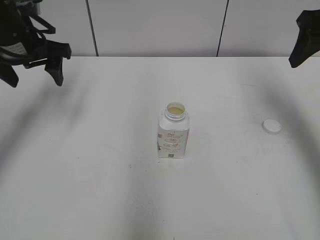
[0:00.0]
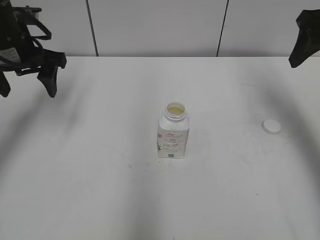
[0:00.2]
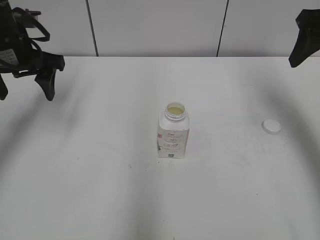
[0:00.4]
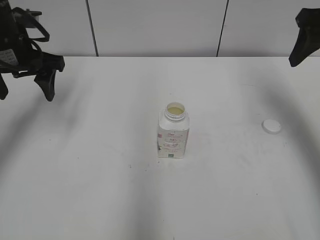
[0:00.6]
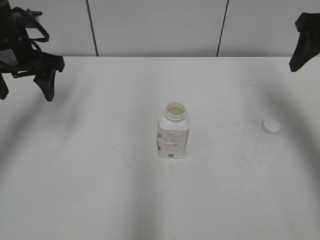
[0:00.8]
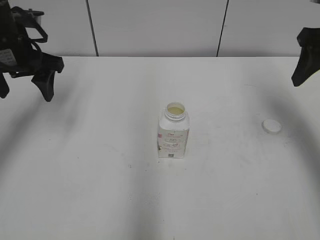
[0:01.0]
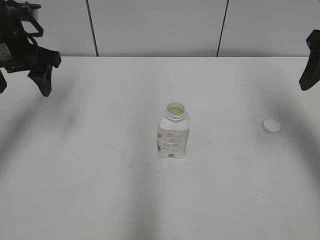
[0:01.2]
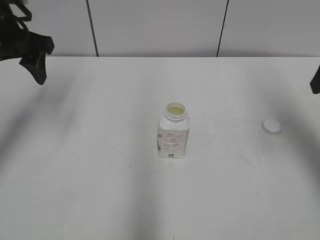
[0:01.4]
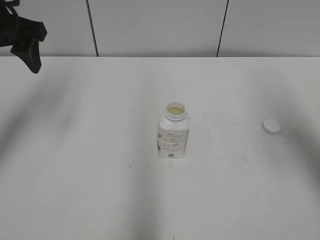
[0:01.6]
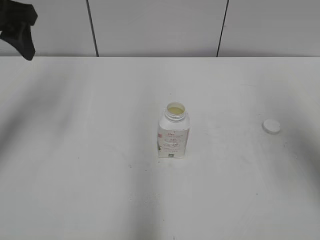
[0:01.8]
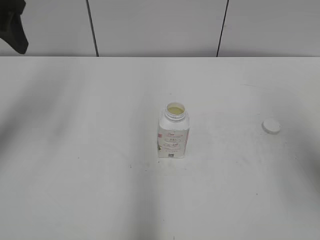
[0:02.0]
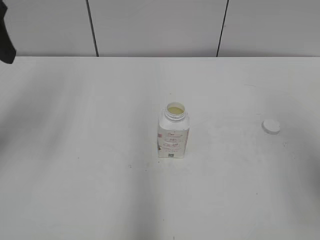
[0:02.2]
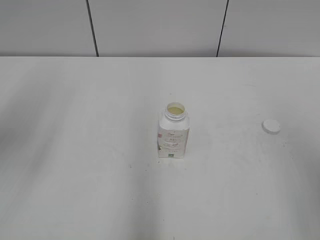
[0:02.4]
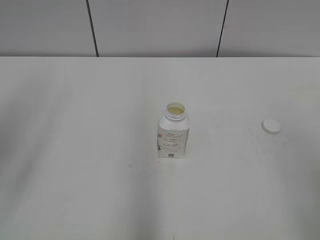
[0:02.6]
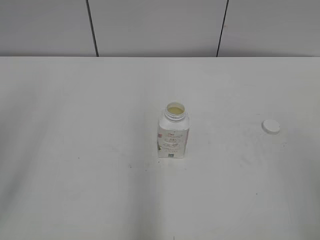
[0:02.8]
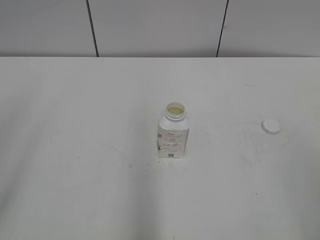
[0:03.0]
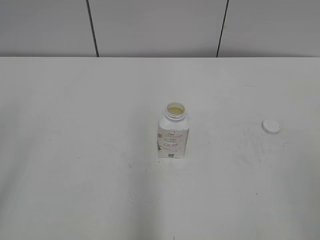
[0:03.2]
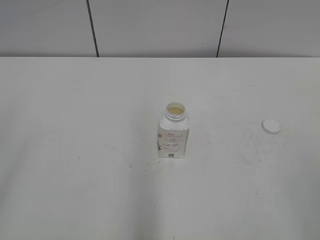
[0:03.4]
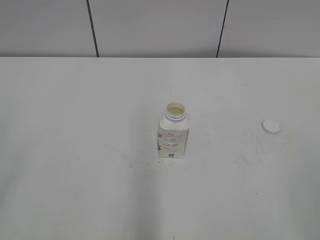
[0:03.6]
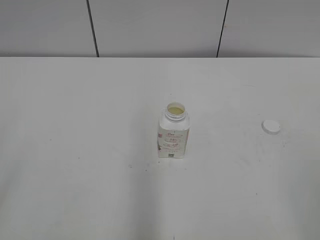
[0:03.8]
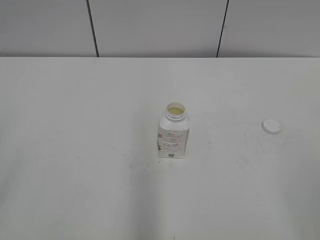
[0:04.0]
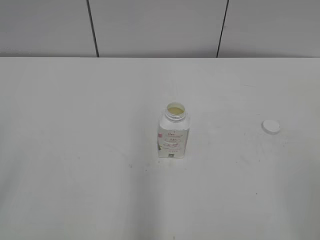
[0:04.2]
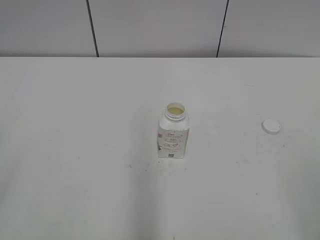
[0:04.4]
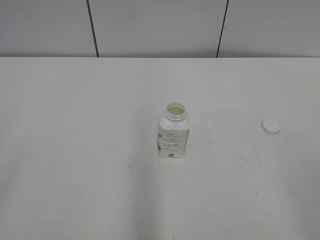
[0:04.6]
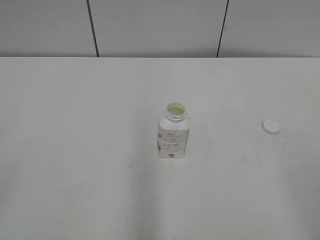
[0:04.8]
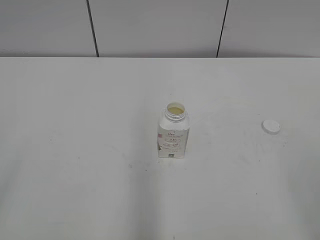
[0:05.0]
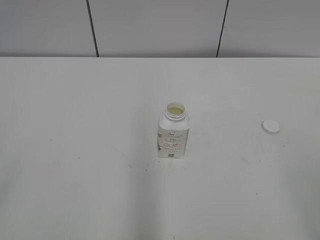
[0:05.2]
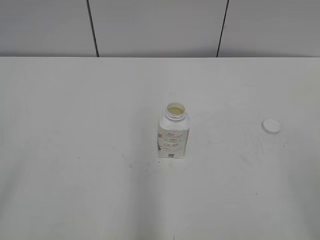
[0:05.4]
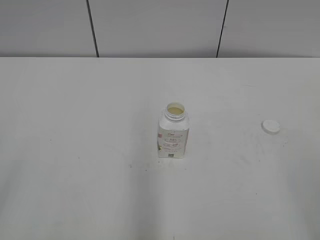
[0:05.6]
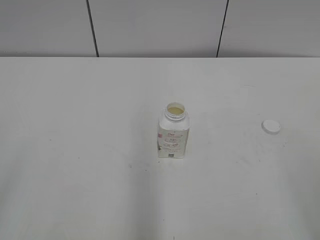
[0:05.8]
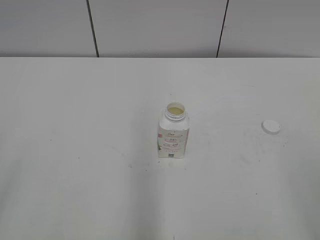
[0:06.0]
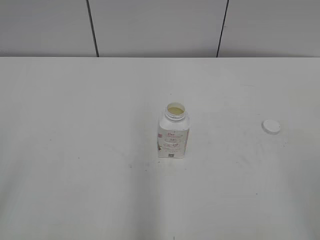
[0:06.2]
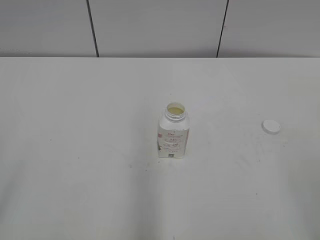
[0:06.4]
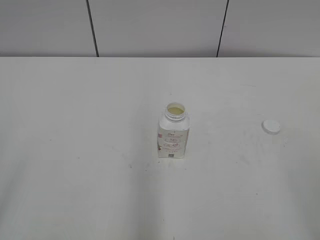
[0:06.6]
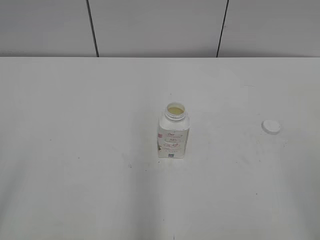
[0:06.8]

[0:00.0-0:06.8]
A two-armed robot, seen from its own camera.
0.0 to 1.4 s: The right gripper is displaced backward by roughly 5 cm.
1.4 to 2.8 s: The grippers both shift backward by approximately 25 cm.

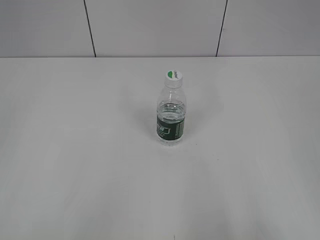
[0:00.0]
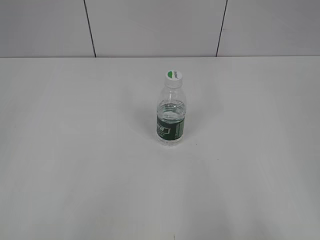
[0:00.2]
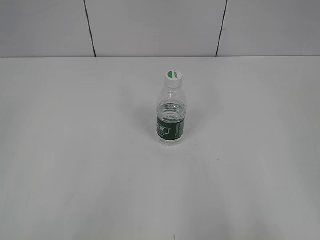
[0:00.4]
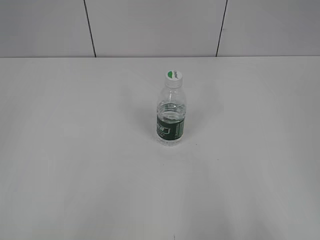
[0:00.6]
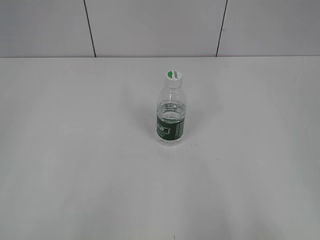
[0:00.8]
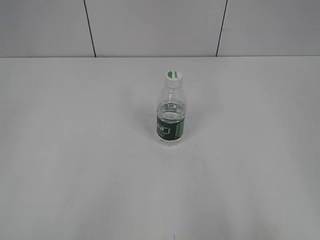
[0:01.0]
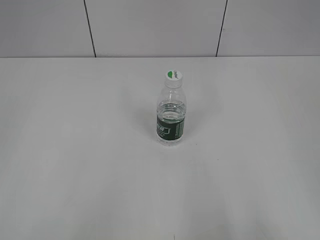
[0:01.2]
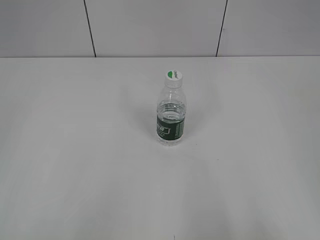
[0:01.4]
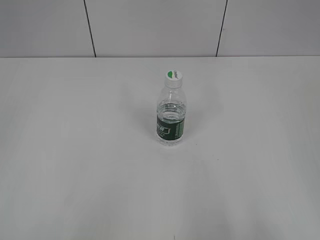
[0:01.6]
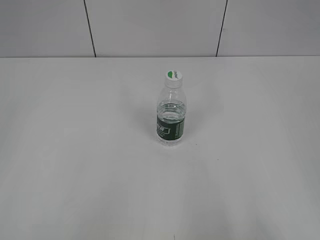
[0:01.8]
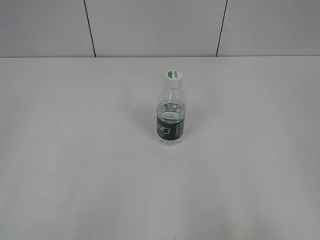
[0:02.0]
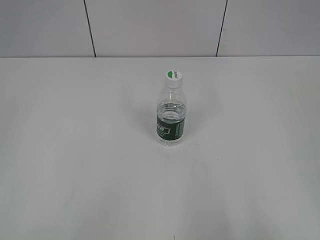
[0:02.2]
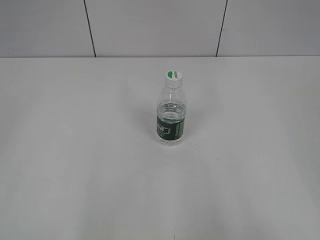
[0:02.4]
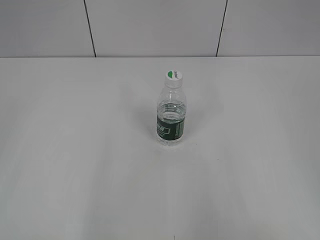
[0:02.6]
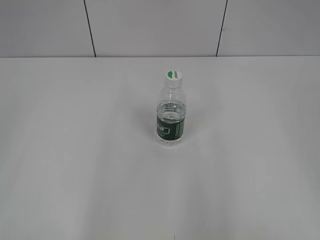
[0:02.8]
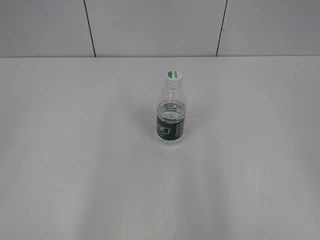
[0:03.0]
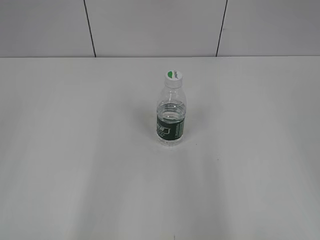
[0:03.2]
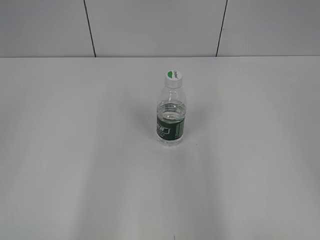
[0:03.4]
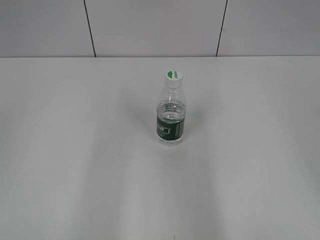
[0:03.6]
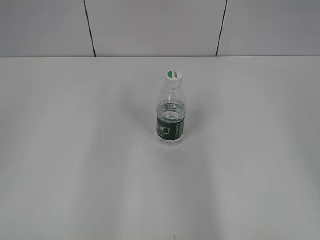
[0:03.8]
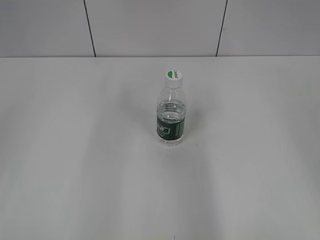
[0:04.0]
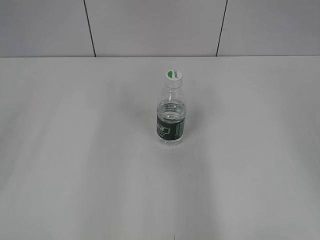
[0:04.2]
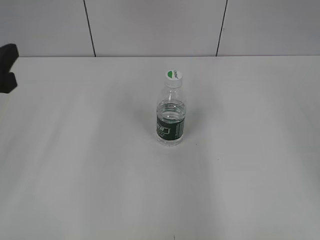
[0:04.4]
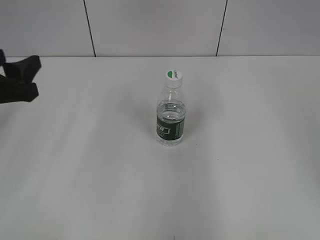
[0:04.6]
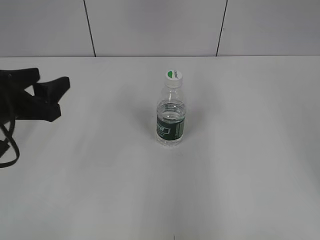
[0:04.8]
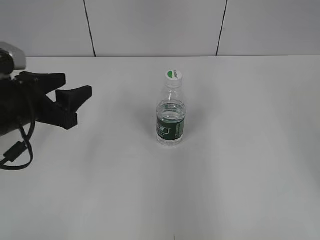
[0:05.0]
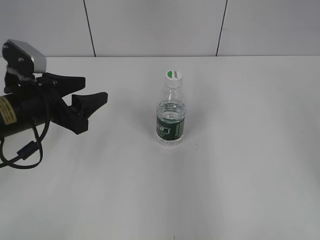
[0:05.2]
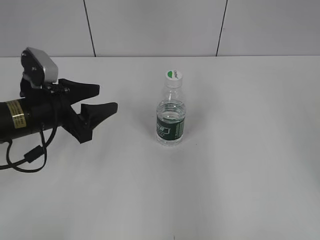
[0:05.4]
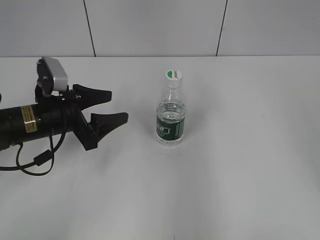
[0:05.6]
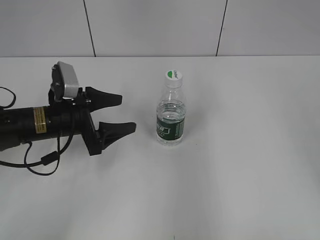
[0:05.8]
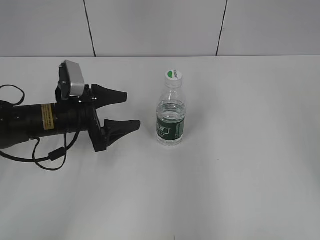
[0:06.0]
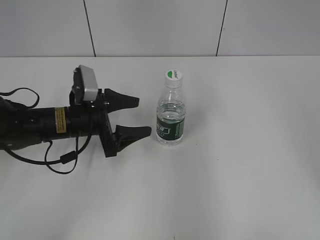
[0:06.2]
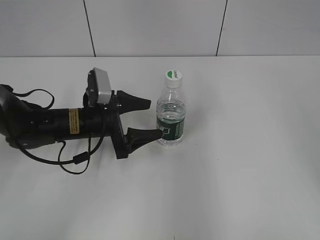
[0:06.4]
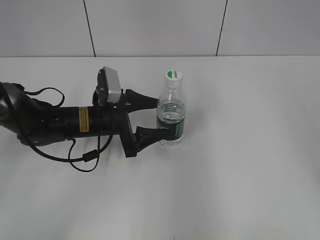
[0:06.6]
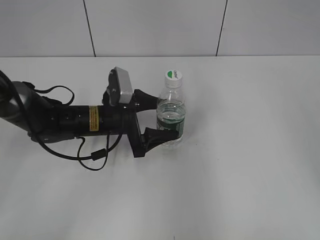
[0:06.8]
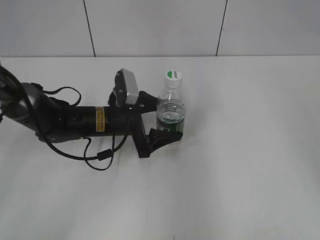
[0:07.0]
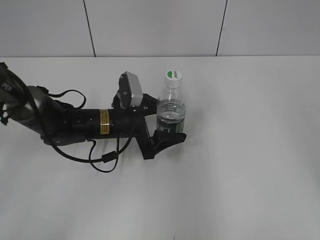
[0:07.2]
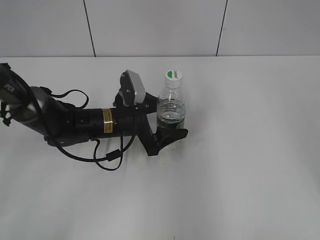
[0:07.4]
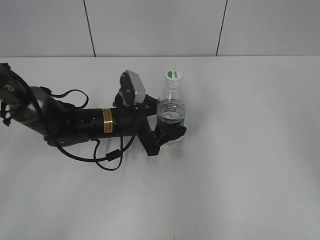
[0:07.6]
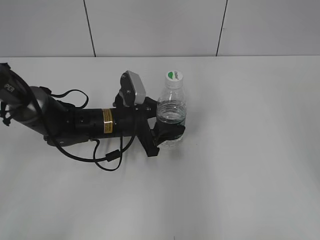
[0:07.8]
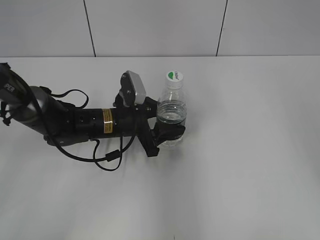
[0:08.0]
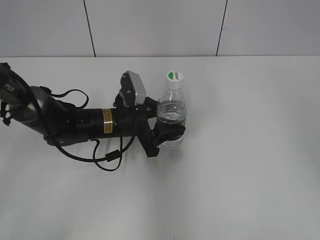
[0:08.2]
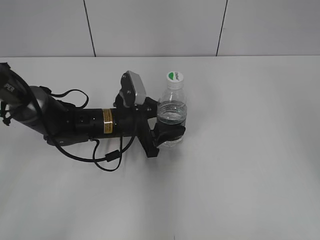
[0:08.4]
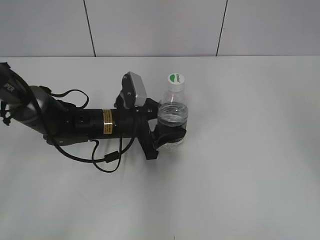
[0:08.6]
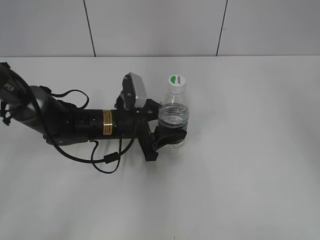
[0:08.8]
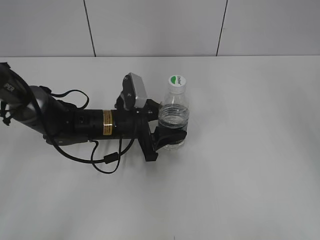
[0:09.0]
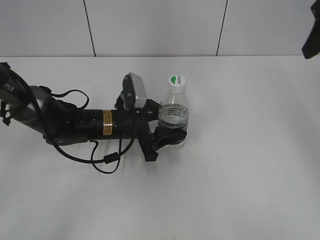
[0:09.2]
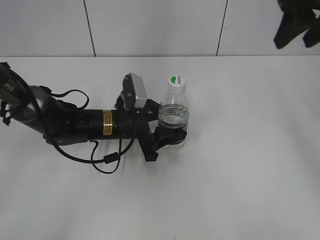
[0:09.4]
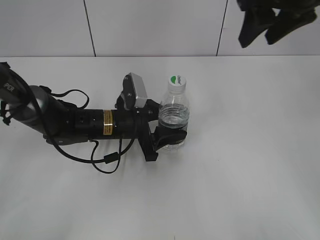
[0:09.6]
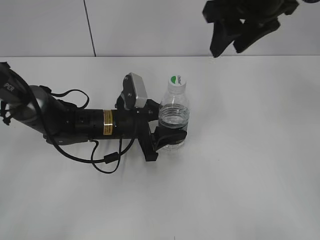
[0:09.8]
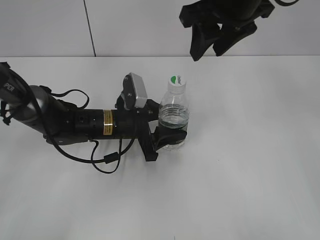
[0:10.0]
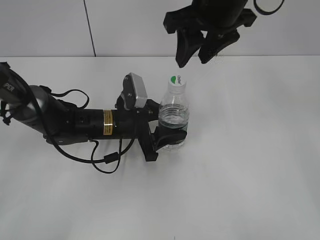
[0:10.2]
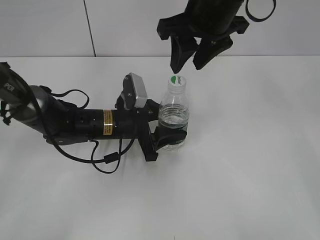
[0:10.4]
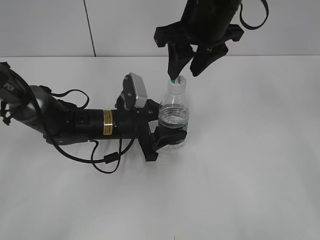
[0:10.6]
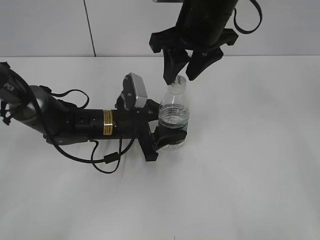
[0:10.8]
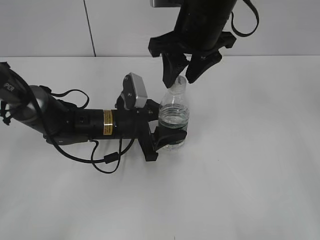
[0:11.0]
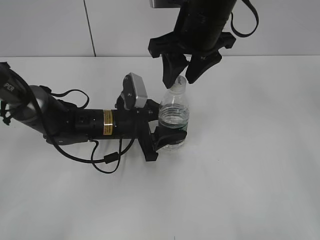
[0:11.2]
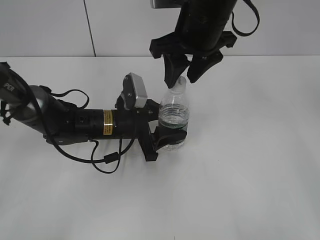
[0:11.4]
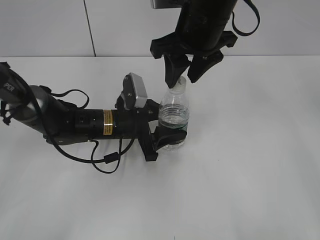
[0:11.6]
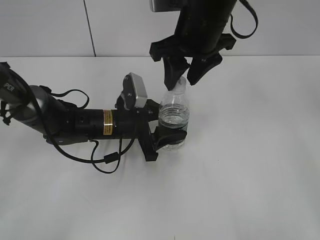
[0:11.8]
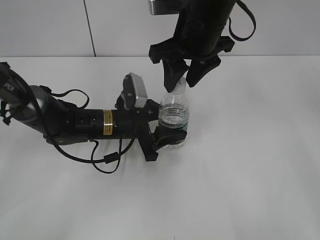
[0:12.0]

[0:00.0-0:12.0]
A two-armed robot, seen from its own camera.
Step, 0.0 to 9.0 s: Grasp the bottle and move it to the center of the table with the left gripper.
3.0 to 4.4 s: The left gripper goes approximately 20 cm forward and downward.
4.4 to 6.0 s: The left gripper moves downward, forward and to the right, about 20 cm, and opens up.
6.0 to 7.6 s: The left gripper is displaced to the right by roughly 10 cm, and closes.
7.6 to 9.0 s: The left gripper closes, while the right gripper goes some 10 cm forward.
9.0 to 10.4 s: The right gripper shifts about 20 cm to the left.
10.4 to 12.0 s: There are only small adjustments of the grippers.

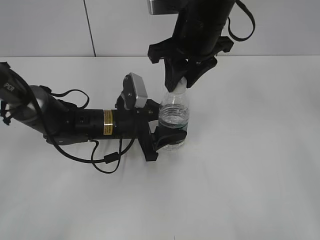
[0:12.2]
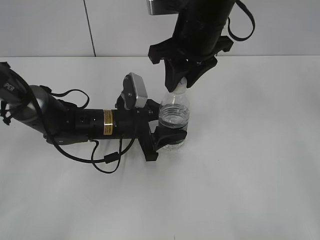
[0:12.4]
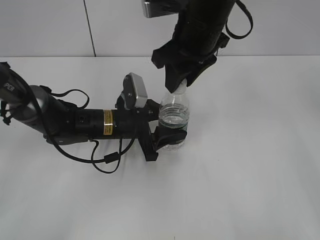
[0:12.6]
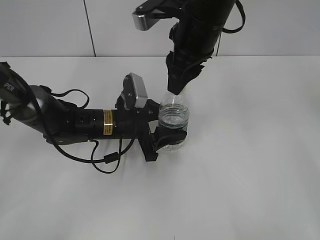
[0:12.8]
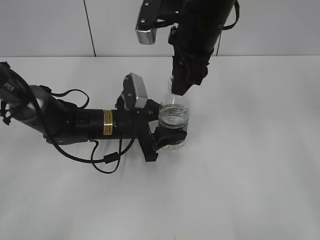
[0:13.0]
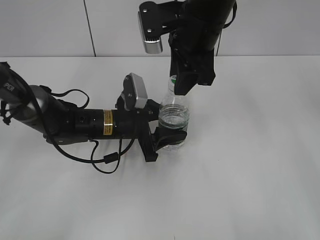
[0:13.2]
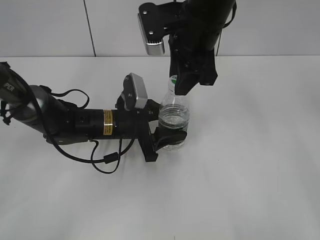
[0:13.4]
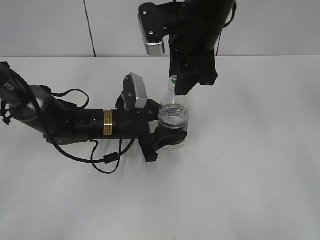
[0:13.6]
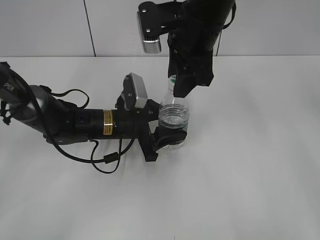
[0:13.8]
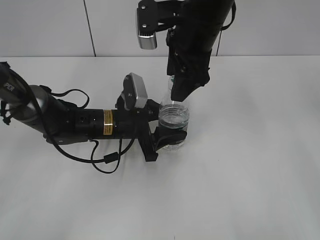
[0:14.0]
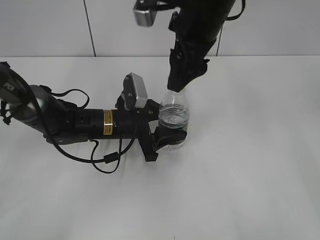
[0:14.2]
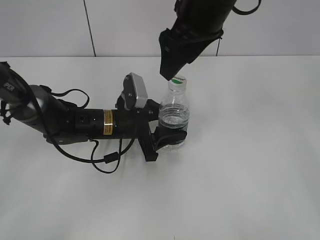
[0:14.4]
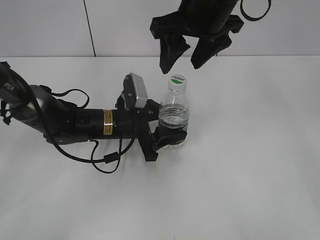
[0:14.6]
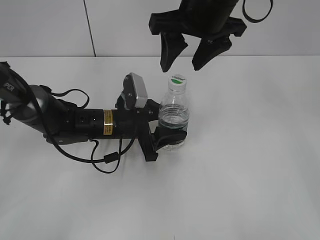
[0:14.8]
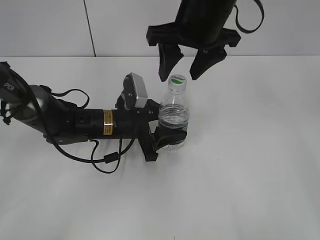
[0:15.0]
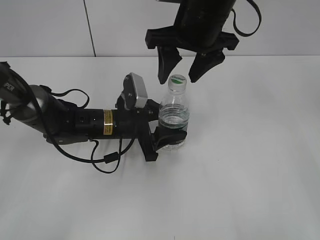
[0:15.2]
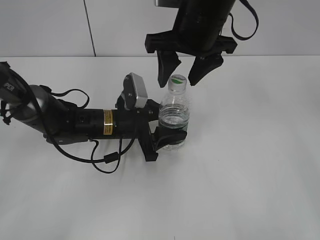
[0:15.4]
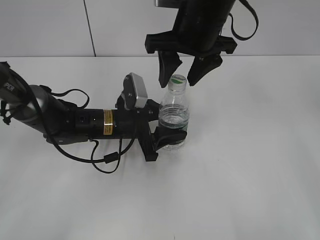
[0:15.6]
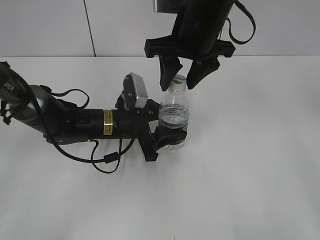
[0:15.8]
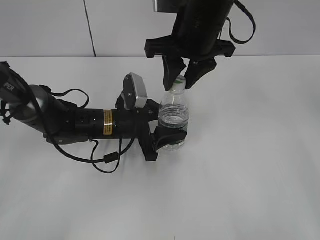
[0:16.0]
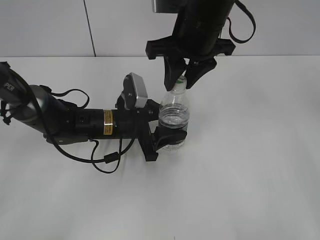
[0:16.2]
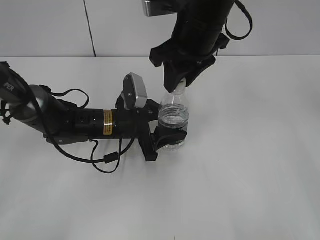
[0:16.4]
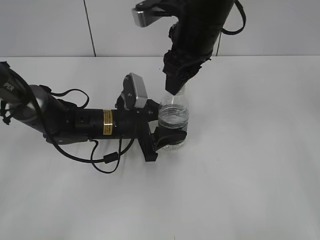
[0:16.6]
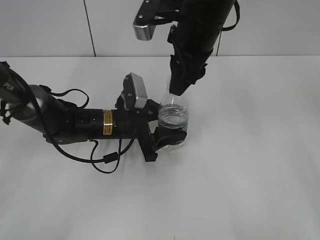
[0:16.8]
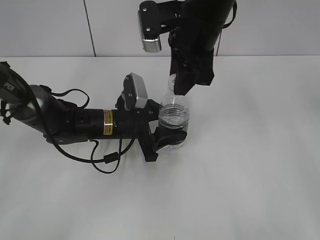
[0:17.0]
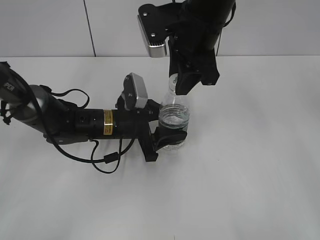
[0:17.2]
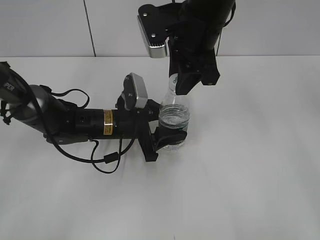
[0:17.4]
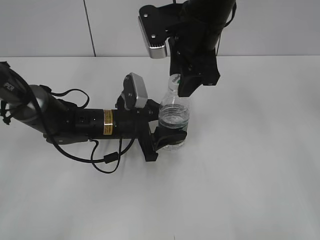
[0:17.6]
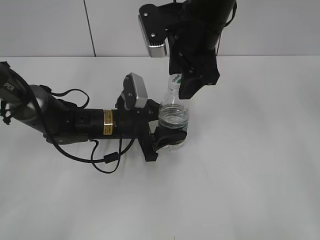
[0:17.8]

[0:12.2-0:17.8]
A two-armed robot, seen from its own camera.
13.6 to 15.0 s: The right gripper opens.
15.0 to 16.4 s: The right gripper closes.
16.4 to 17.8 s: The right gripper opens up.
